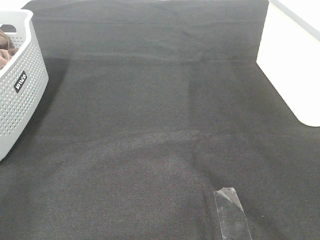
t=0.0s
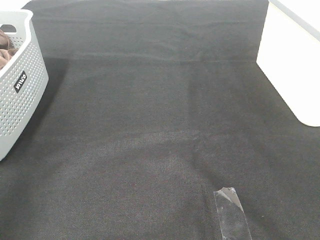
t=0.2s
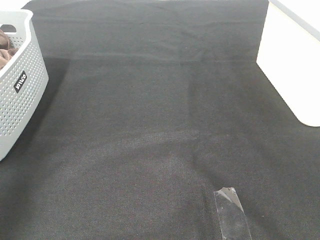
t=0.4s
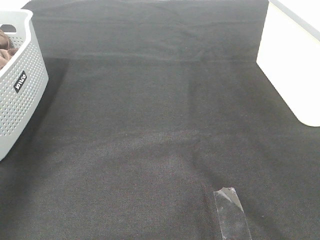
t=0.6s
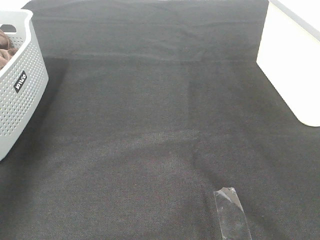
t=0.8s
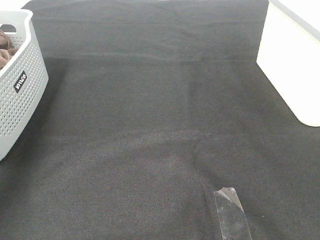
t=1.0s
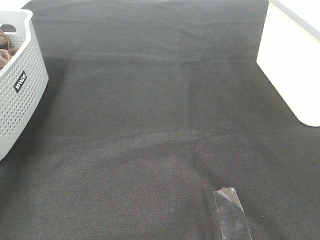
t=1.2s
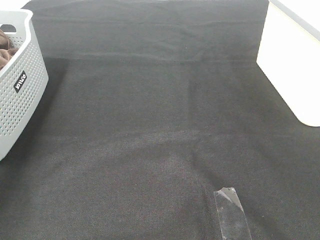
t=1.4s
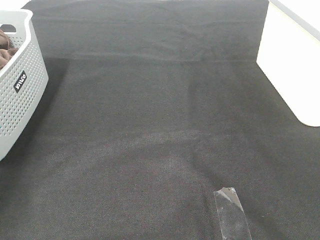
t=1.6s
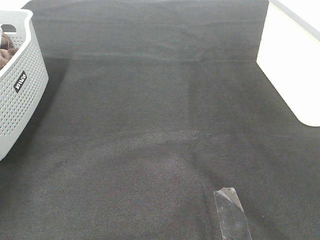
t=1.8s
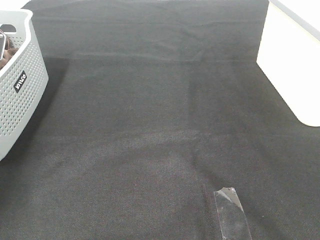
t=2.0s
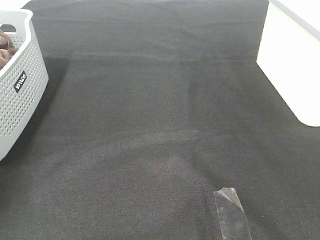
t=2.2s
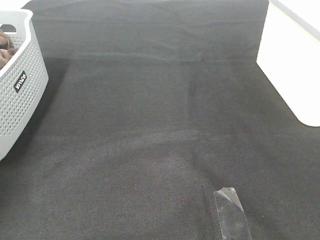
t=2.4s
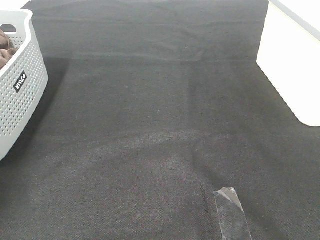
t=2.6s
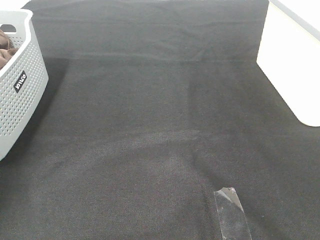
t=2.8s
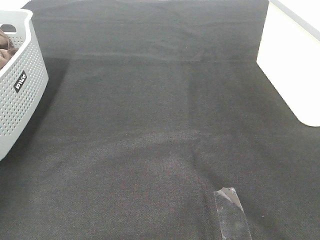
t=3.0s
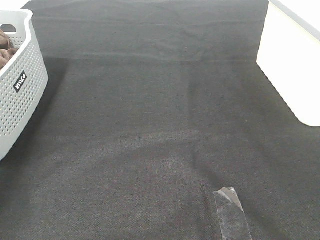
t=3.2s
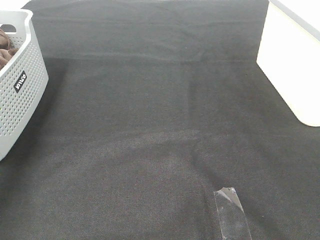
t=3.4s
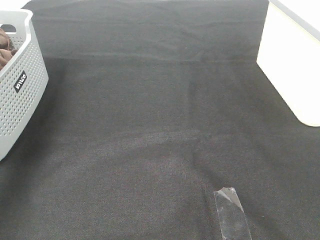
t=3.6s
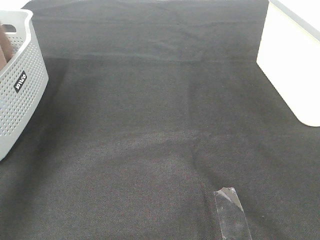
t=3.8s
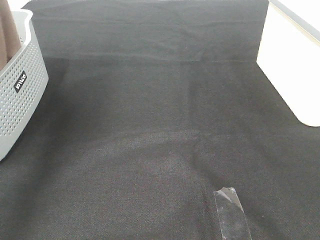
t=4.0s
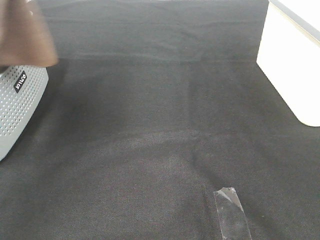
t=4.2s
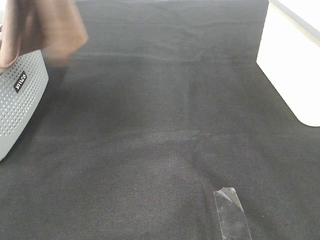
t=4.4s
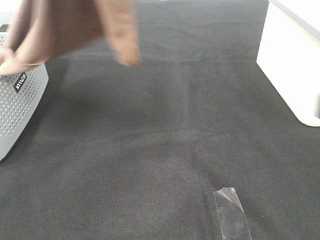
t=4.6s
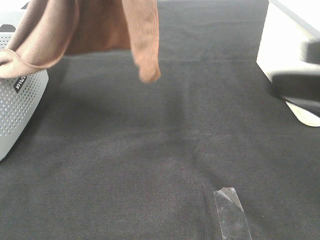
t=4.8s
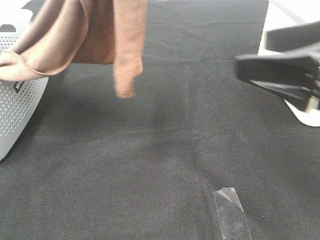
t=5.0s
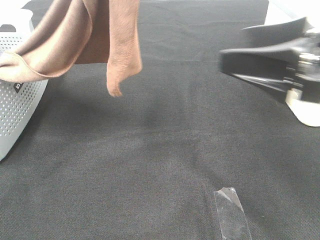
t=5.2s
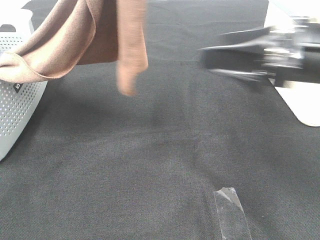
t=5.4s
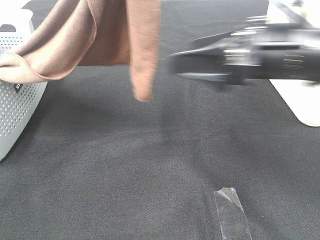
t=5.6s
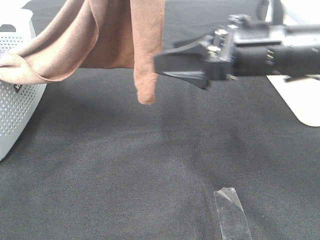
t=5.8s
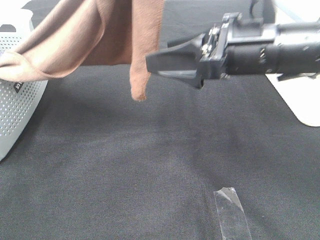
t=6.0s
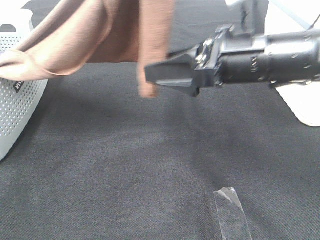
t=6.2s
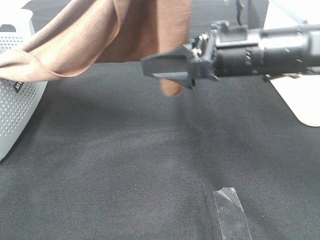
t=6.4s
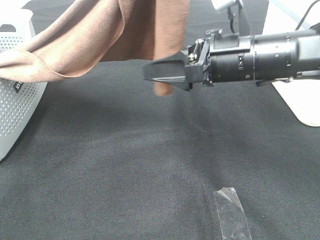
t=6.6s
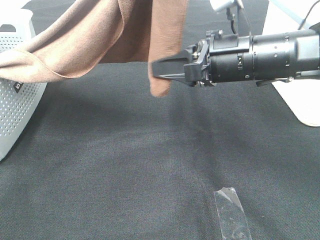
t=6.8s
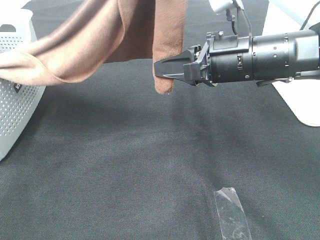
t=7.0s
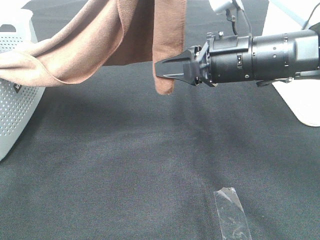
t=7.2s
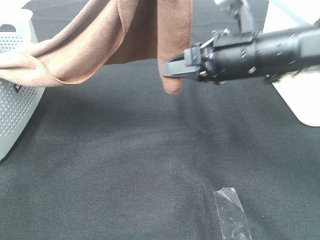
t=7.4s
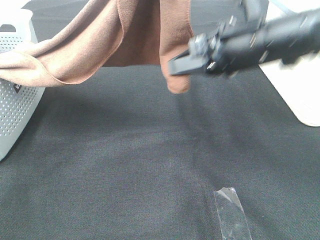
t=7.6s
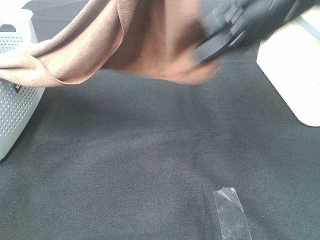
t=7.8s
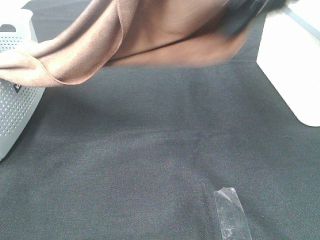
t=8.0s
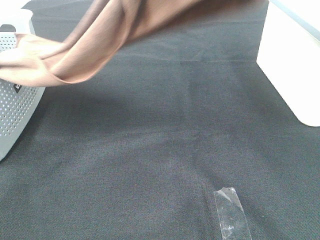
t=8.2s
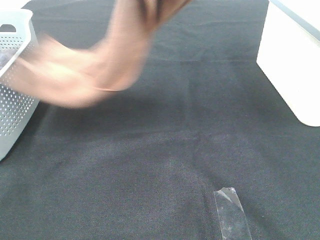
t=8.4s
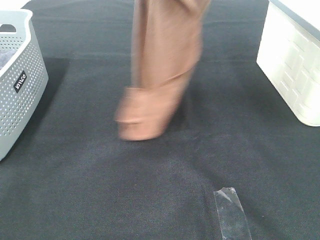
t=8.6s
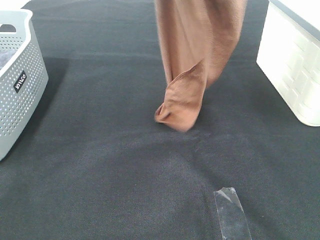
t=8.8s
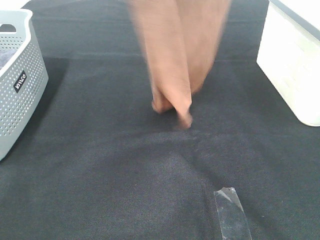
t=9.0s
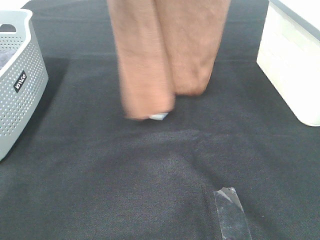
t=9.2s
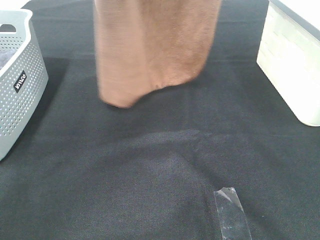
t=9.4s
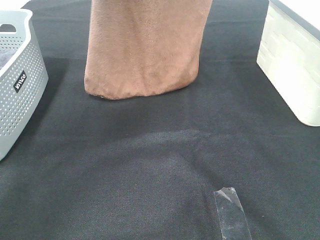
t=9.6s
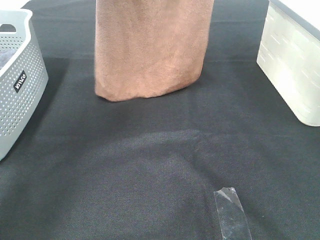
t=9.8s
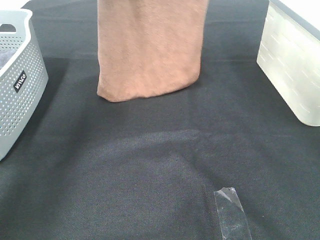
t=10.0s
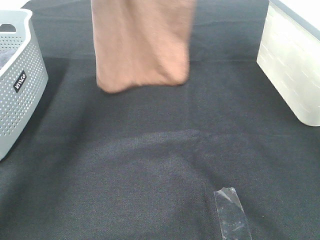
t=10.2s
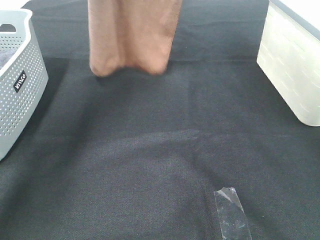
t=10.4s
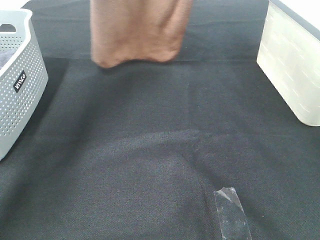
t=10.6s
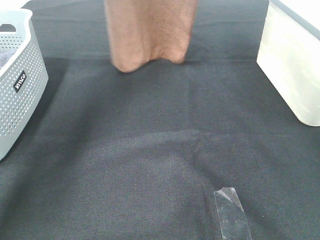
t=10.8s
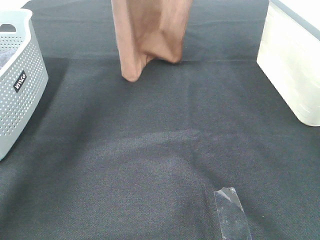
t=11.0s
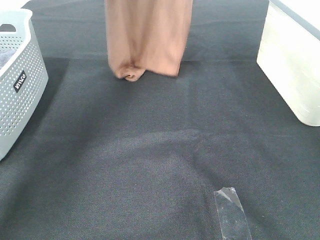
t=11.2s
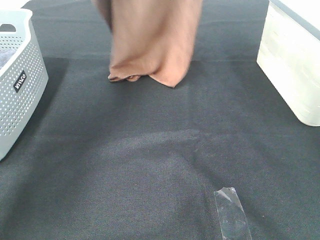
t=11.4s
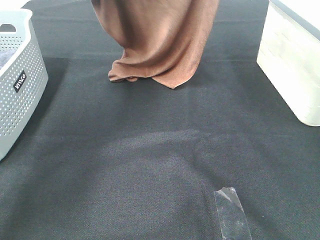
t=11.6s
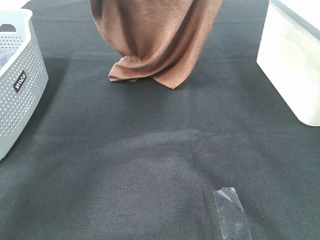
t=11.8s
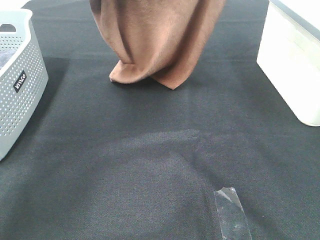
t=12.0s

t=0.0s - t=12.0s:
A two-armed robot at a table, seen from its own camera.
Task of the whole recording: Remove the towel and place it.
Step, t=4.2s - t=7.2s: Right hand: grab a corner of the brown towel and straighten it.
t=0.0s - t=1.6s: The left gripper shifts roughly 40 cm forward.
t=3.0s - t=4.4s: The left gripper is displaced upward, to the right and backward by roughly 35 cm.
t=4.4s - t=6.0s: The left gripper moves to the right, roughly 10 cm; the right gripper travels forward and to the left by some 25 cm.
t=6.0s - t=7.6s: The right gripper closes its fingers.
t=7.6s - t=9.0s: The left gripper travels forward by approximately 5 cm. Meanwhile the right gripper goes some 25 cm upward.
t=9.0s - t=10.4s: The right gripper is displaced forward and downward by some 15 cm, while the left gripper travels forward by about 15 cm.
t=10.4s - t=12.0s: The right gripper is displaced backward by roughly 5 cm, while the left gripper moves backward, downward and to the right, about 10 cm.

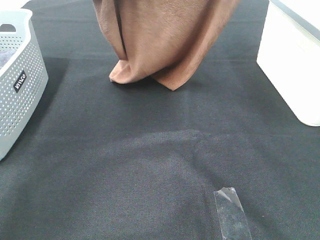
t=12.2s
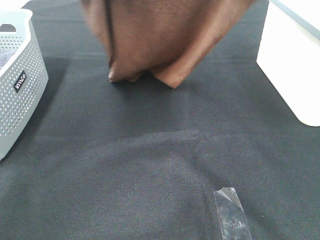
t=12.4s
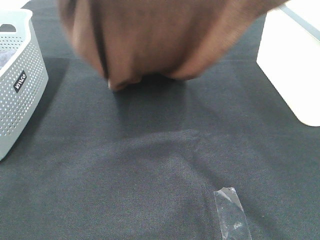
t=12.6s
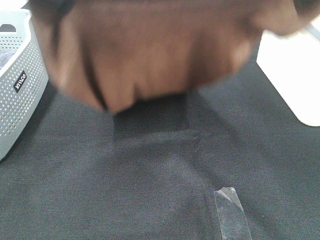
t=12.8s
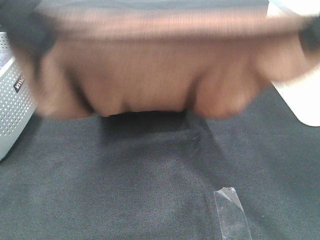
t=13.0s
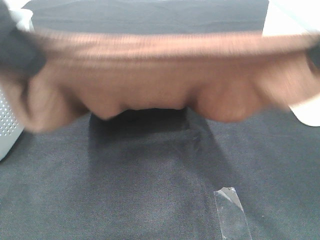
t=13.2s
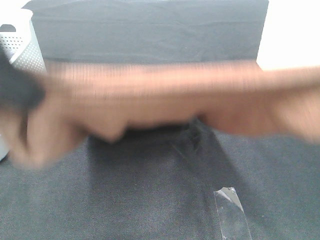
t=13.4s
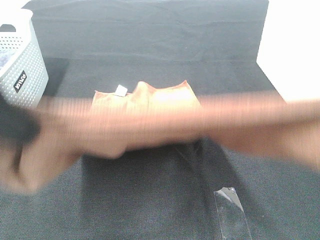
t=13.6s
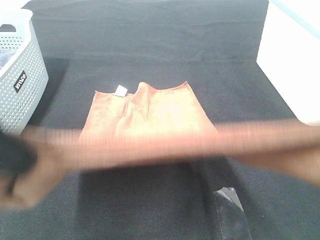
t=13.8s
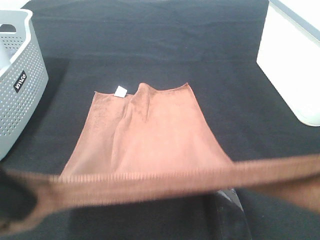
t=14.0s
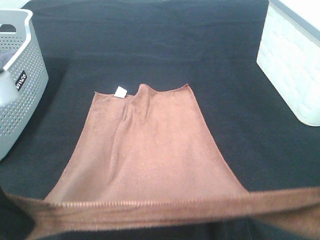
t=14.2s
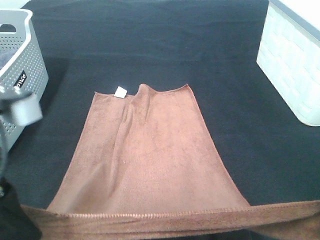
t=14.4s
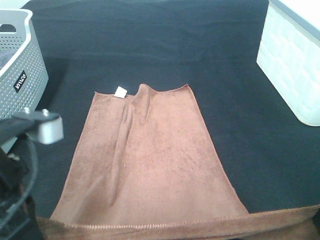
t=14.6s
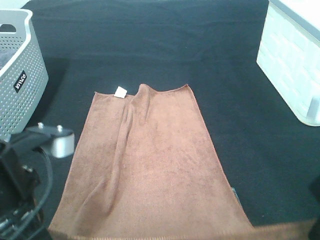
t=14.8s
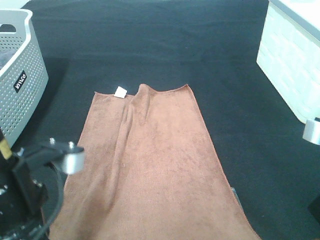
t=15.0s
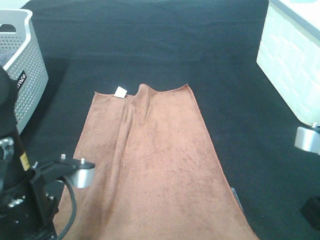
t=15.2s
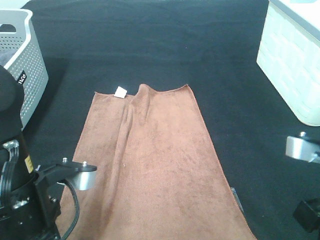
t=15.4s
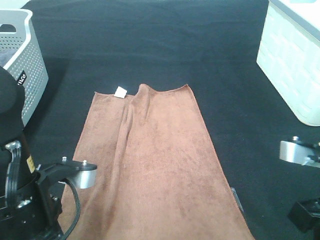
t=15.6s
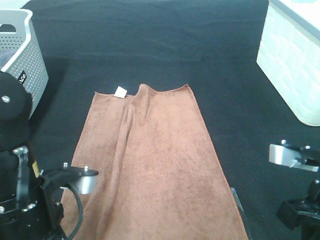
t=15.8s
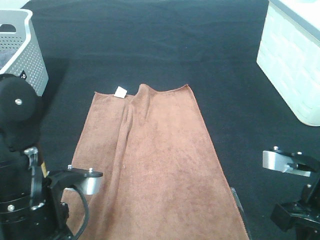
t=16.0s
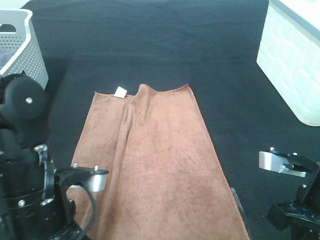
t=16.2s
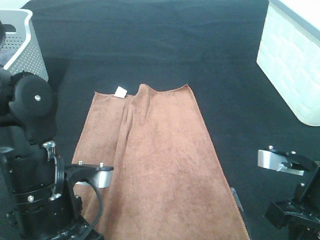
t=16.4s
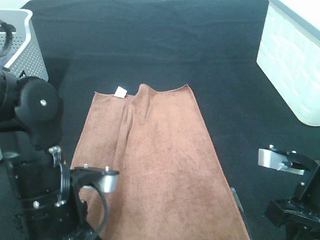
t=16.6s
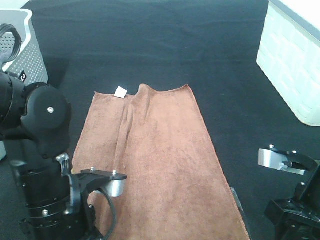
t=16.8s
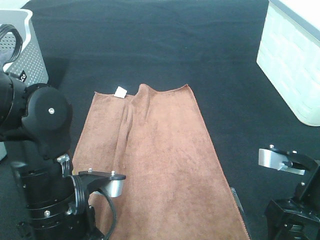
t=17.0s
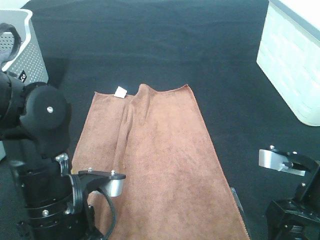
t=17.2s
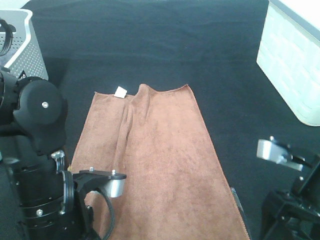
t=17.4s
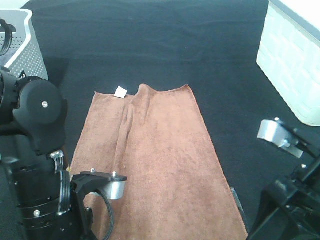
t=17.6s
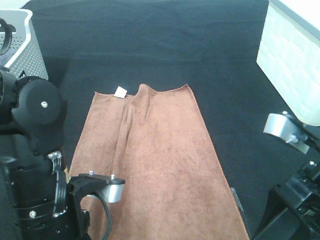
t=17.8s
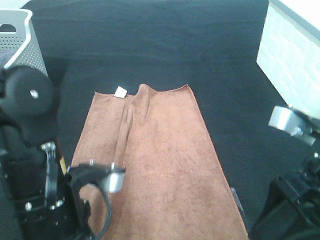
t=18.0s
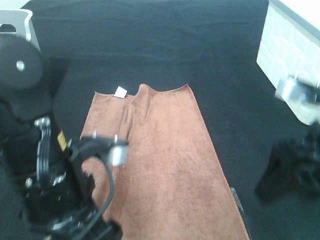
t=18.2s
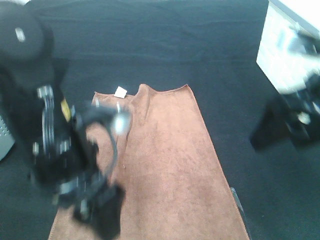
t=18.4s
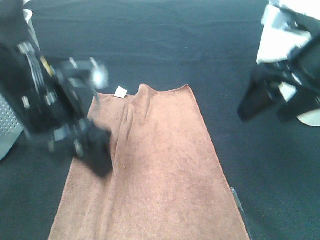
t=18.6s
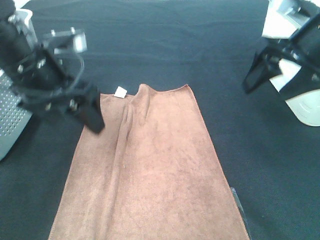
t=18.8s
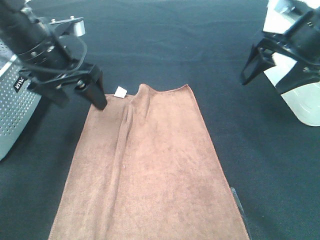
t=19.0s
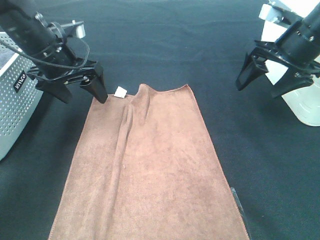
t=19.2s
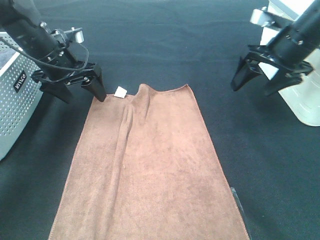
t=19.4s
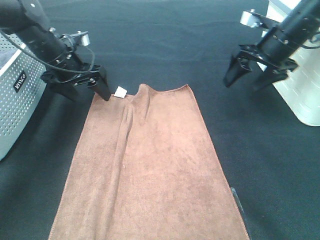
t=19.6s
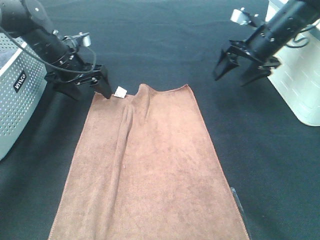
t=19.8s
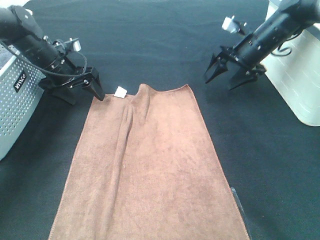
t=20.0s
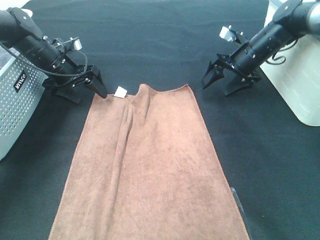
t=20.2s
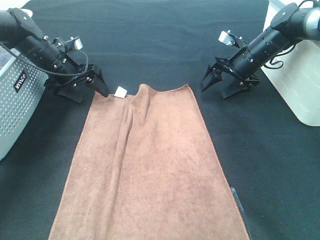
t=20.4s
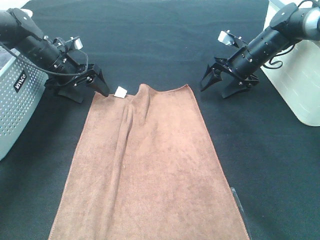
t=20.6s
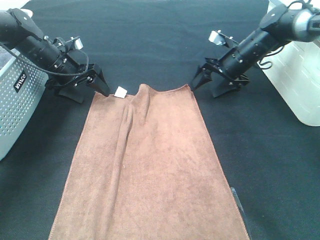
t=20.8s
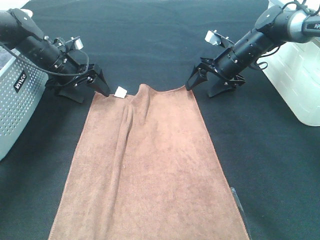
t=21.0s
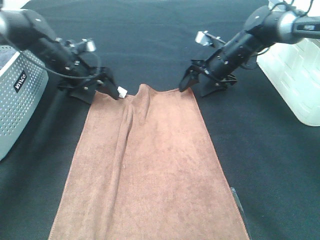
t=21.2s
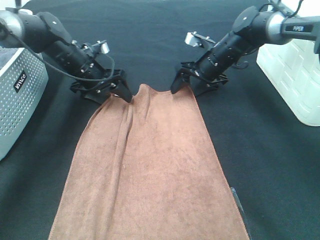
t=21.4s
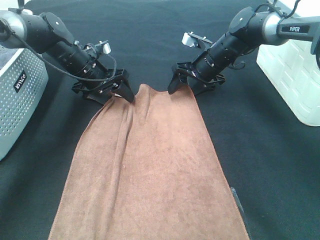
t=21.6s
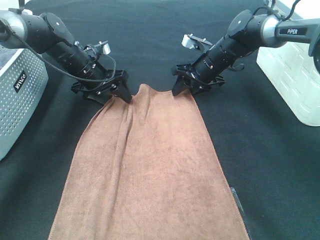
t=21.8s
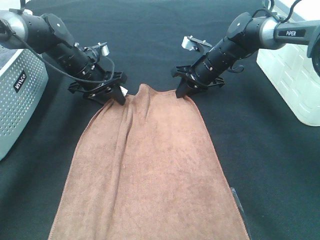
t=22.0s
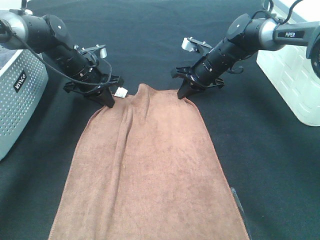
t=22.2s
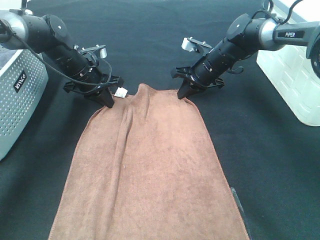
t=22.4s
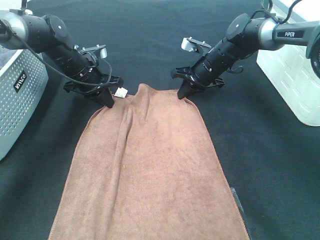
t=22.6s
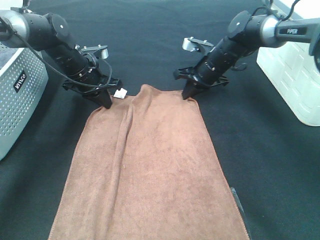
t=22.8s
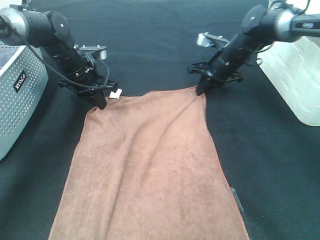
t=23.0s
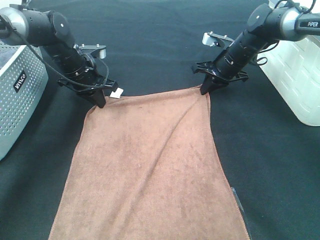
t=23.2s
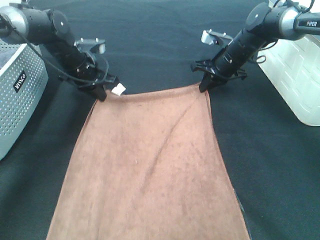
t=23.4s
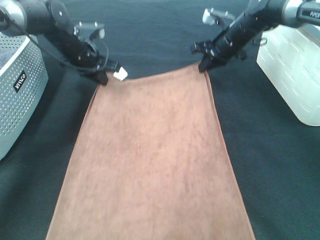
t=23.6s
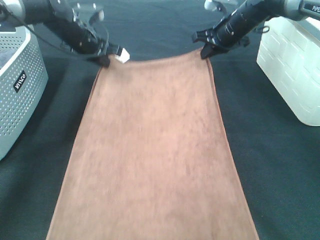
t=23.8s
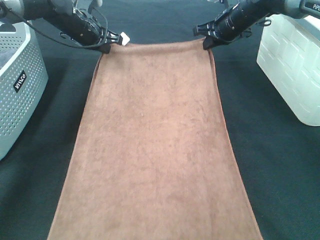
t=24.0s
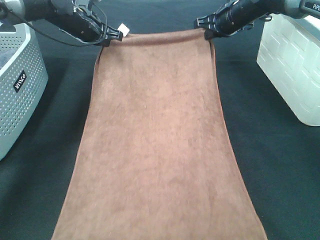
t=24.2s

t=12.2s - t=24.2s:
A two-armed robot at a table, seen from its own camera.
Task of the whole recording: Remove the towel and place it.
Step, t=13.6s - t=21.2s: Left hand:adjust the brown towel.
Step, t=13.6s - t=21.2s: Right hand:adjust the brown towel.
t=12.2s - t=13.8s: The grippers both shift backward by roughly 25 cm.
t=13.8s - t=15.2s: Both grippers travel together downward, about 15 cm.
t=15.2s - t=16.6s: The right gripper is displaced downward by approximately 5 cm.
t=16.6s - t=18.2s: The right gripper travels upward by approximately 10 cm, and opens up; the left gripper shifts about 5 cm upward, and opens up.
t=18.2s - t=19.8s: Both grippers move forward, some 30 cm.
t=19.8s - t=21.2s: The right gripper moves downward and to the left, some 10 cm.
t=21.2s - t=22.6s: The left gripper closes up; the right gripper closes its fingers.
t=22.6s - t=24.2s: The left gripper heads upward and forward, covering about 10 cm. The right gripper goes some 15 cm upward, forward and to the right.
